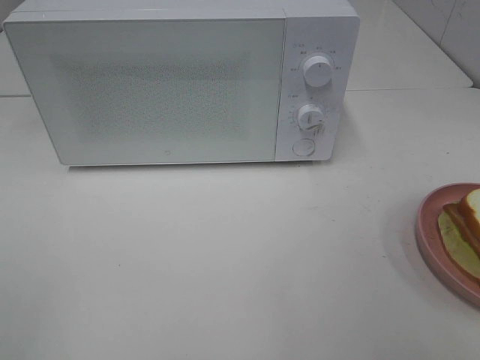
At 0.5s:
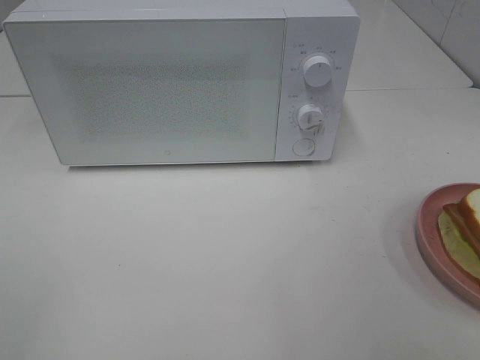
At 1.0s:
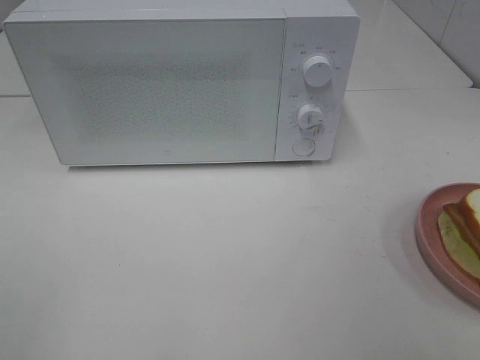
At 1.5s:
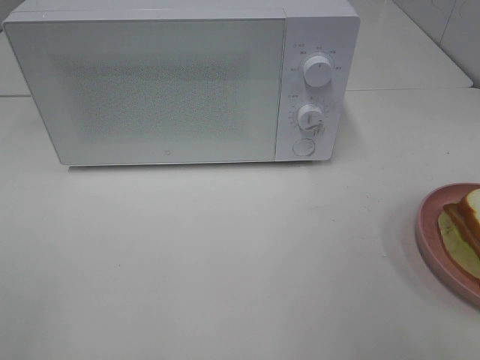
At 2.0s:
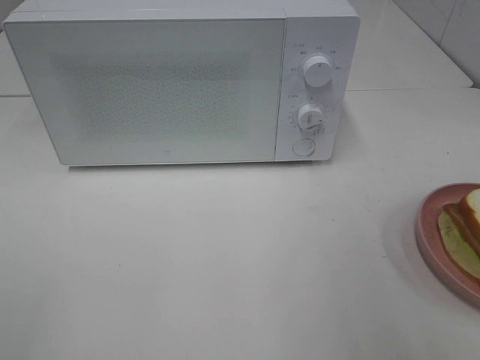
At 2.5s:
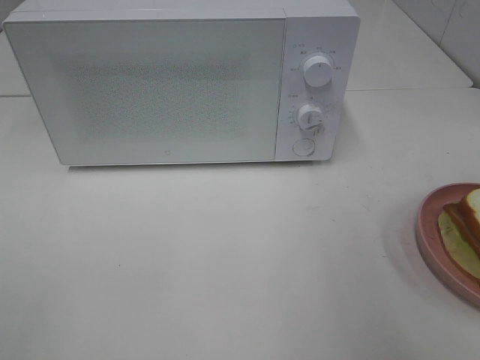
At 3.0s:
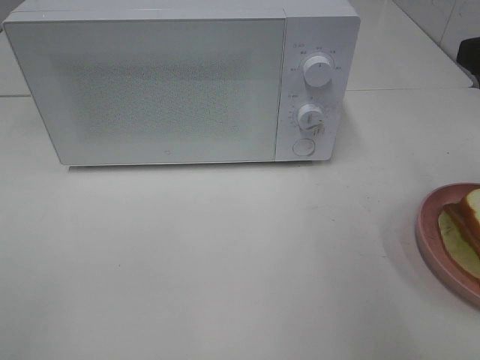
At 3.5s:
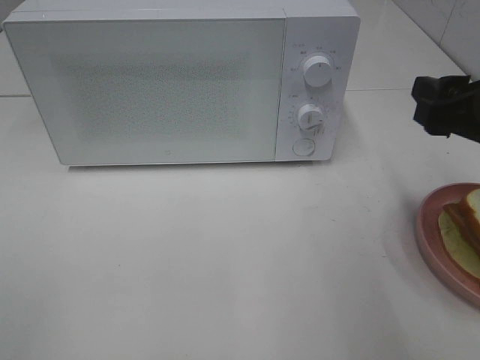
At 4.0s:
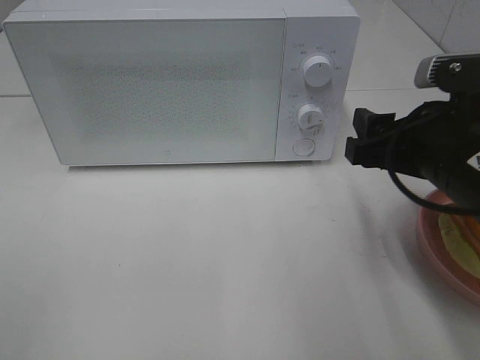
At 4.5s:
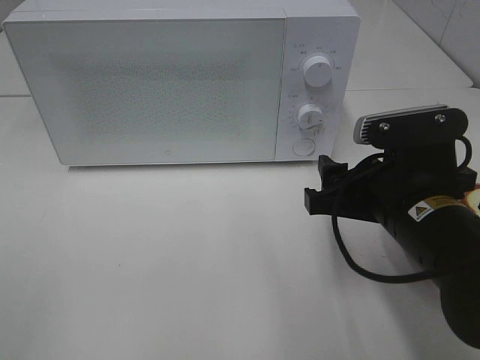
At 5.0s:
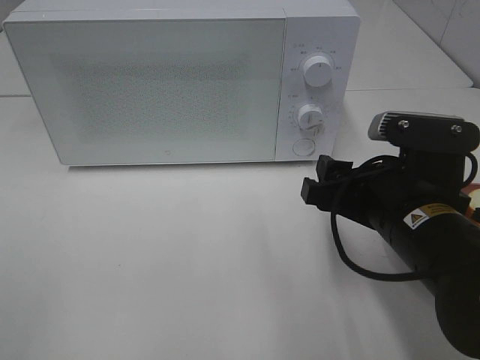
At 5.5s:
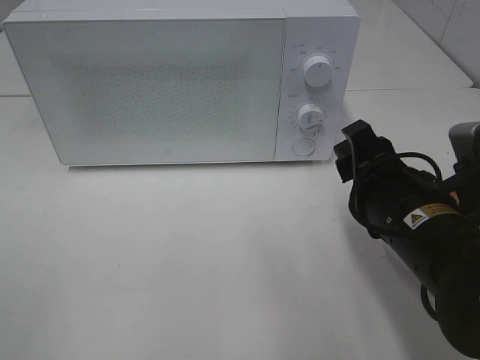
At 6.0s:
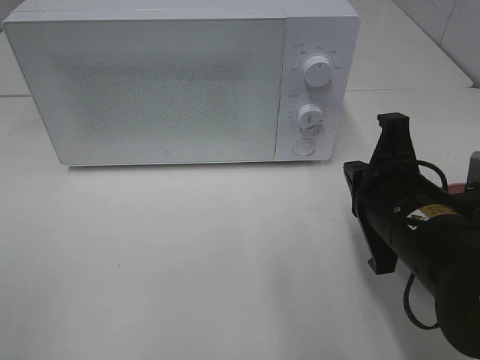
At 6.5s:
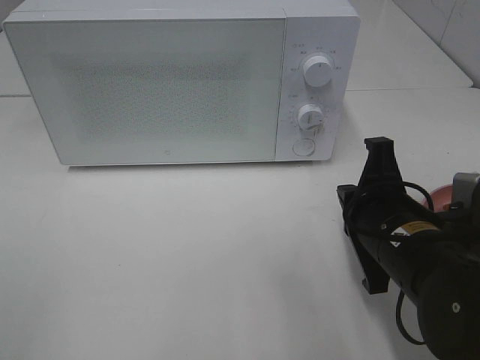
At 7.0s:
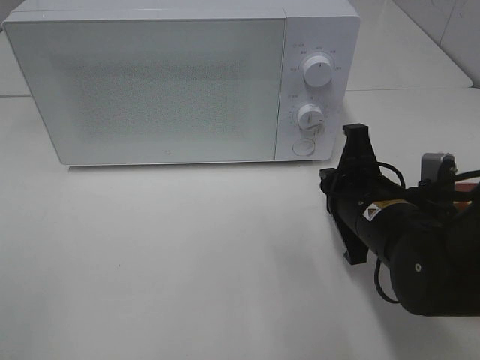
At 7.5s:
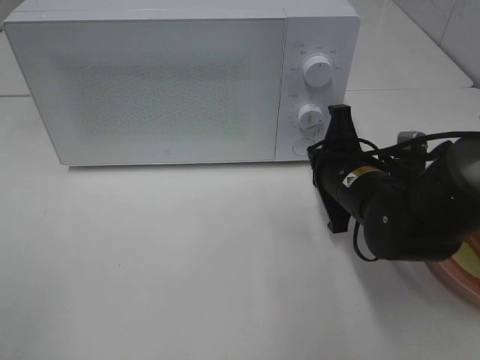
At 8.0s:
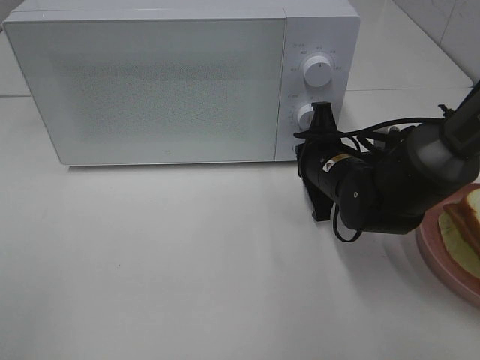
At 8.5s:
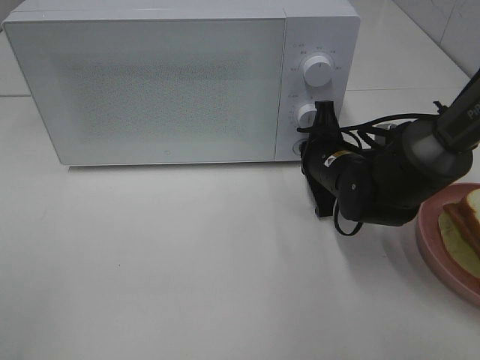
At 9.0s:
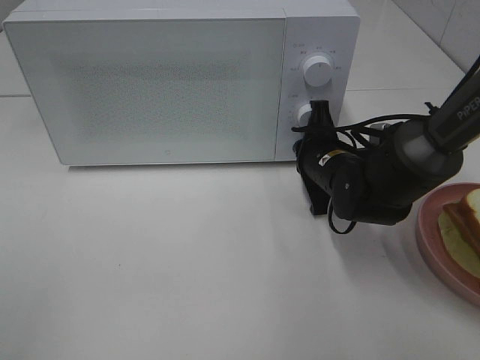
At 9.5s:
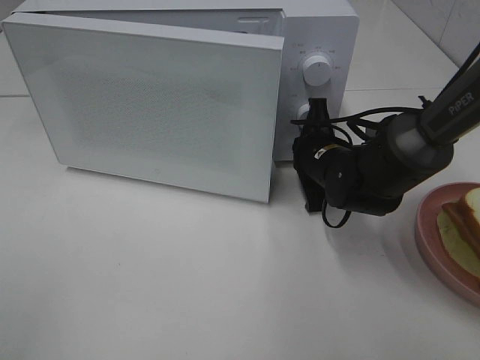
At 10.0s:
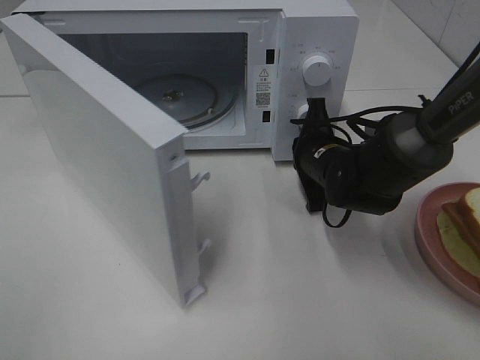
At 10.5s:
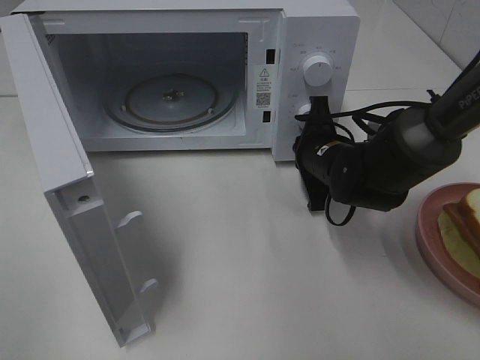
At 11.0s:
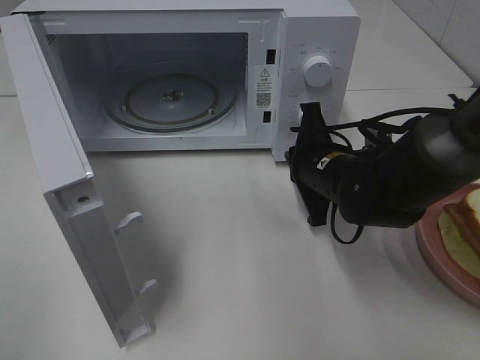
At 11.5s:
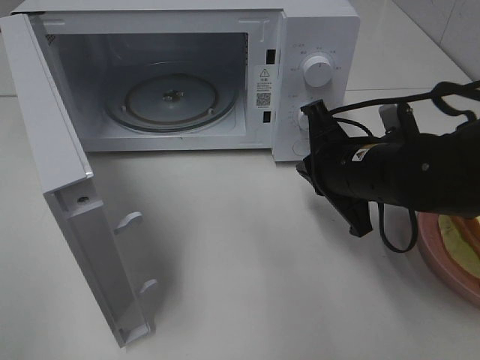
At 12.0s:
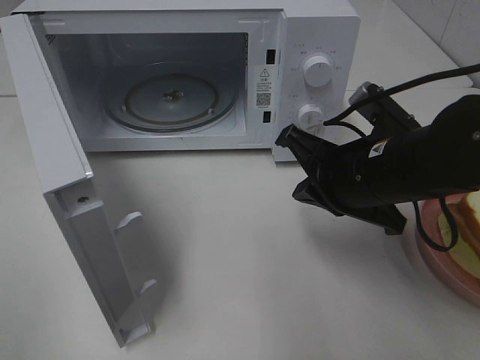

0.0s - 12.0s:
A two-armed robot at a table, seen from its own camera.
Task of the whole recording: Heat Sandwich.
Step, 0.0s - 10.5s: Right hand: press the switch.
2.0s - 4.0s: The right gripper travels downward, forward and to the left by roughly 20 cm.
4.0s - 6.0s: The right gripper moves roughly 5 cm, and closes.
6.0s - 8.0s: The right gripper goes about 15 cm forward and downward.
10.0s - 12.0s: The right gripper moves backward and upward, approximately 15 cm.

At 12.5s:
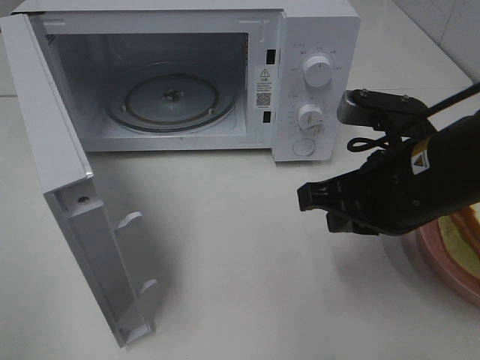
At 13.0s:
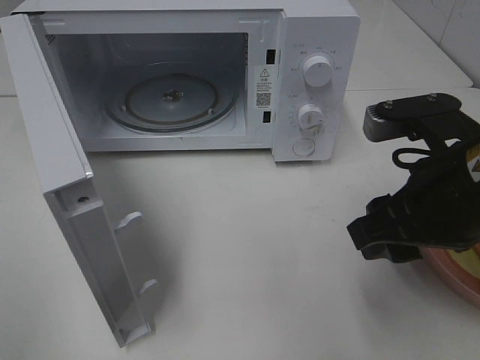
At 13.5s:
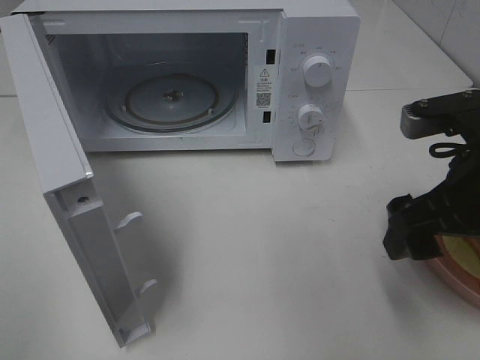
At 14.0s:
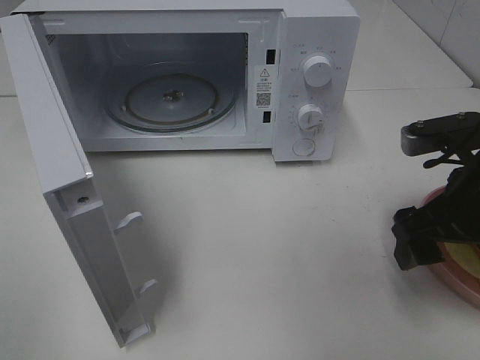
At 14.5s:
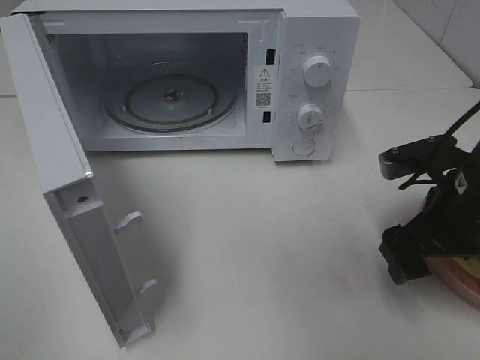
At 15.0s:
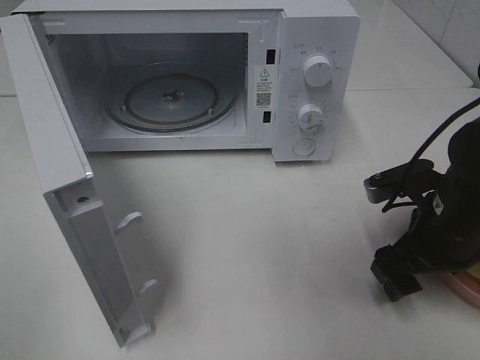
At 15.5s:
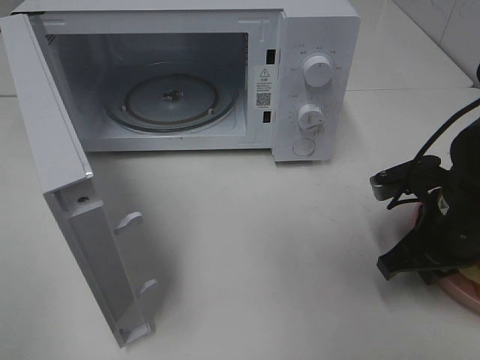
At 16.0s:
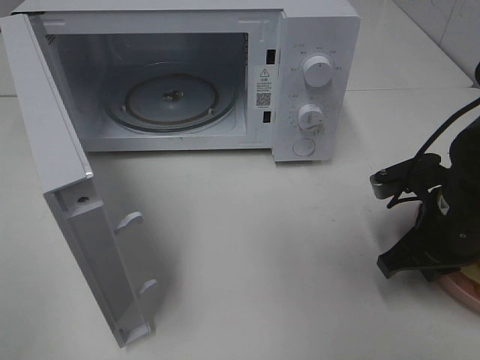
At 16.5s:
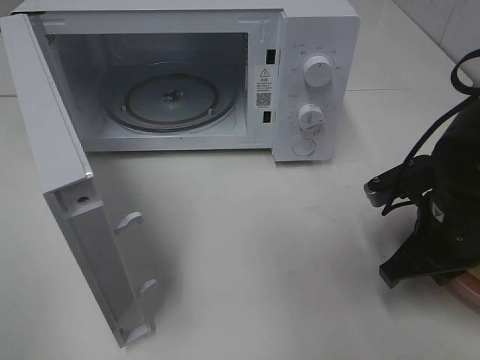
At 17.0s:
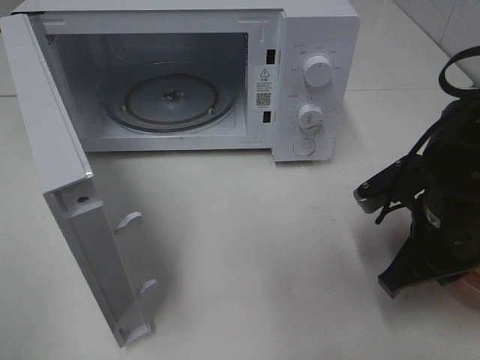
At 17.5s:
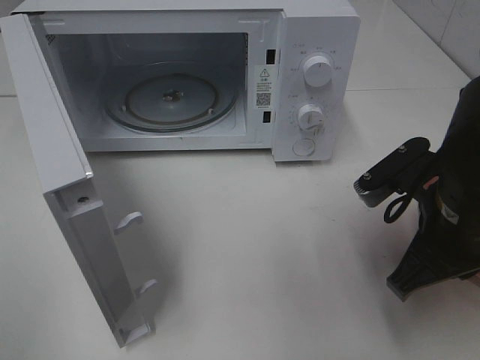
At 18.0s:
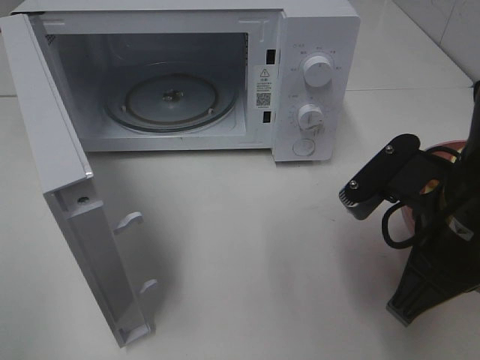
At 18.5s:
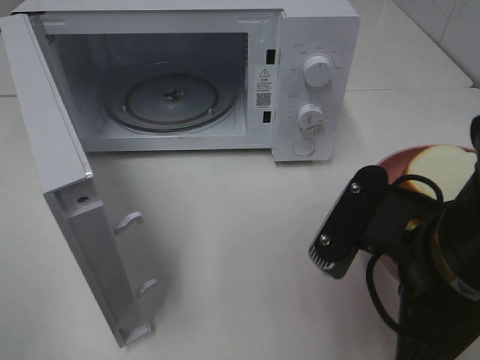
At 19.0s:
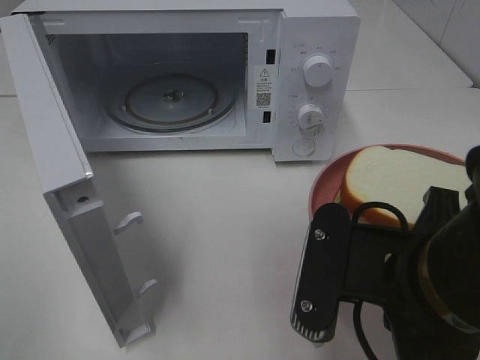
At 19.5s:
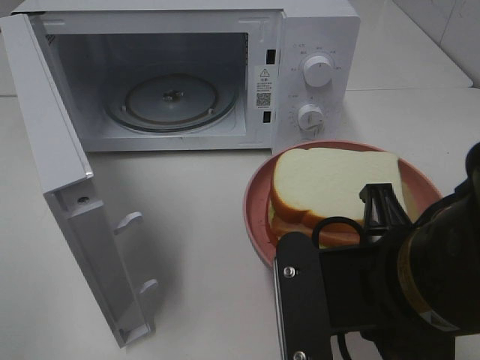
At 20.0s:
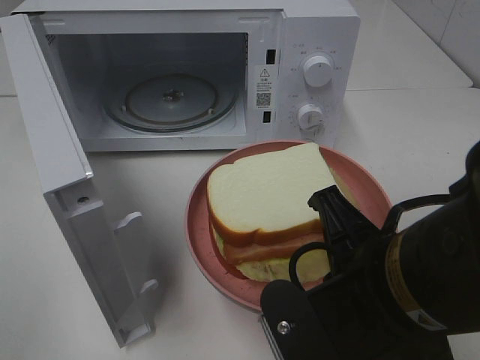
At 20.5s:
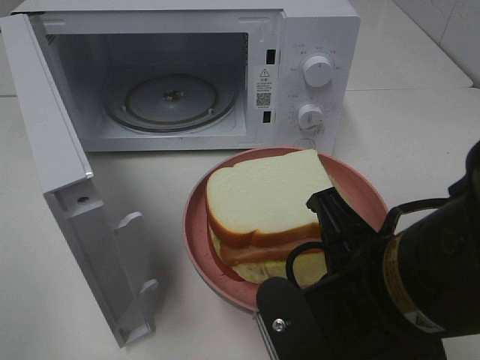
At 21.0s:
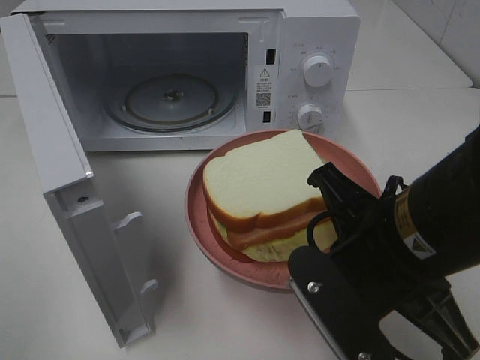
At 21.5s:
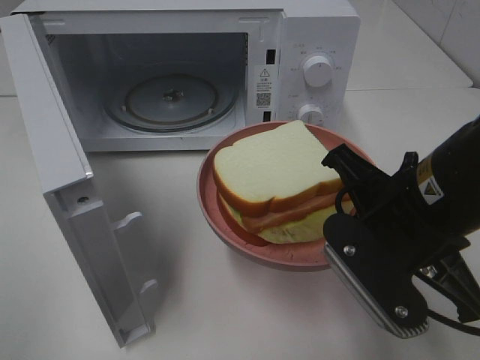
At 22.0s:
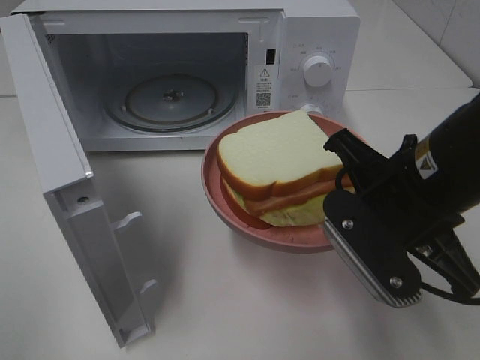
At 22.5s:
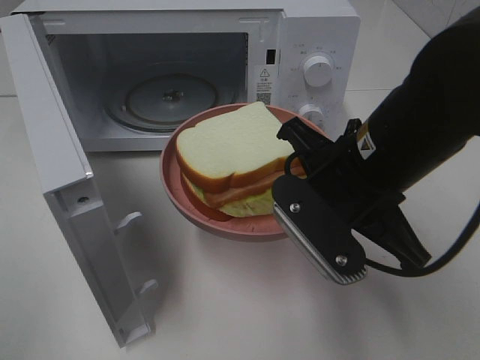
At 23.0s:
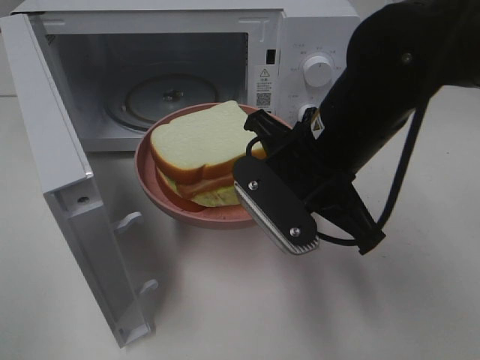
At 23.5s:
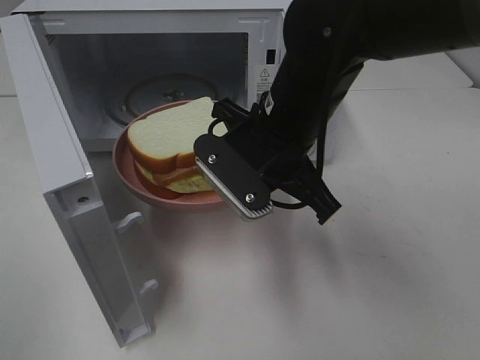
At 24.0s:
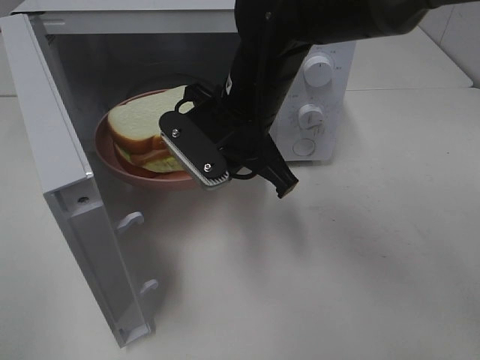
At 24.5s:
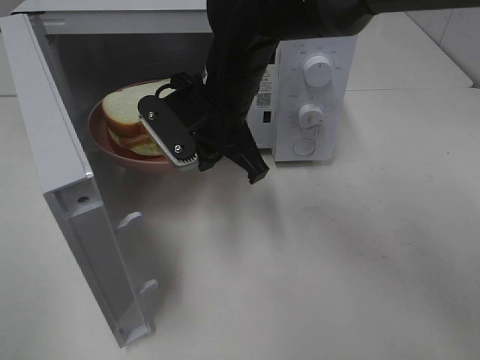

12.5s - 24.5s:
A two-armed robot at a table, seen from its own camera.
Task of the whole recording: Heat Sandwich.
Step, 12.5s - 15.5s: Right hand: grab the plate with the sandwich.
12.5s - 14.5s: The right gripper moves to the right, approximately 5 cm, and opens up.
14.5s - 16.5s: The right gripper closes its fingers.
16.5s - 18.5s: The right gripper moves backward, upward and to the left, approximately 15 cm.
20.5s - 22.5s: The right gripper shifts about 10 cm forward.
22.5s - 24.5s: The right gripper shifts roughly 15 cm forward and to the left.

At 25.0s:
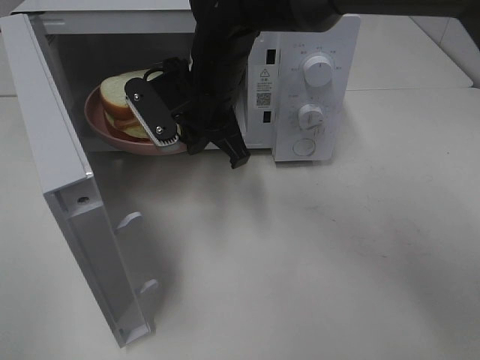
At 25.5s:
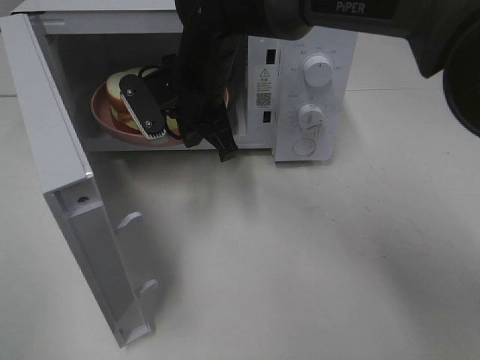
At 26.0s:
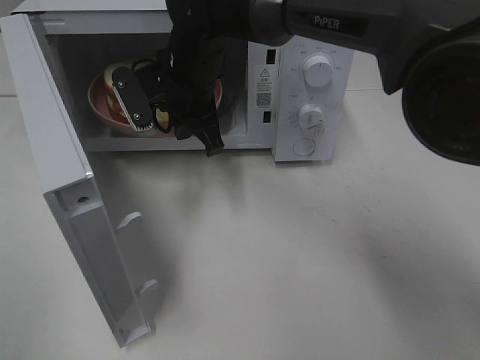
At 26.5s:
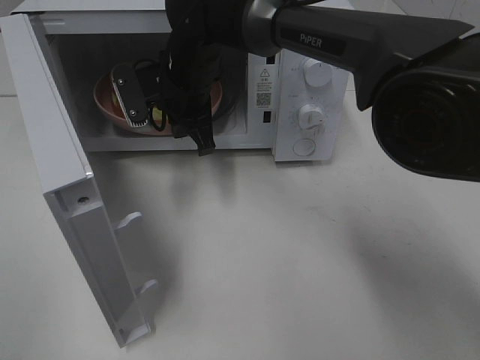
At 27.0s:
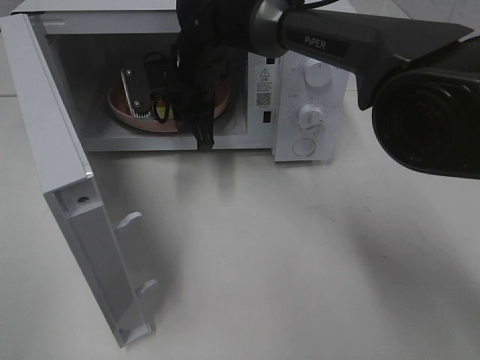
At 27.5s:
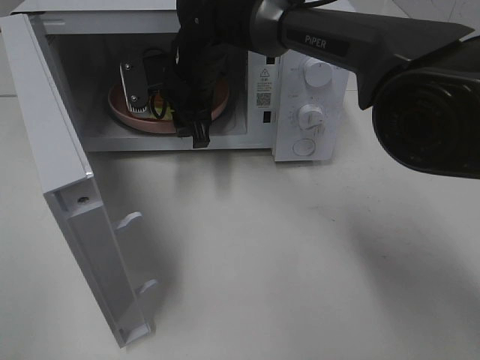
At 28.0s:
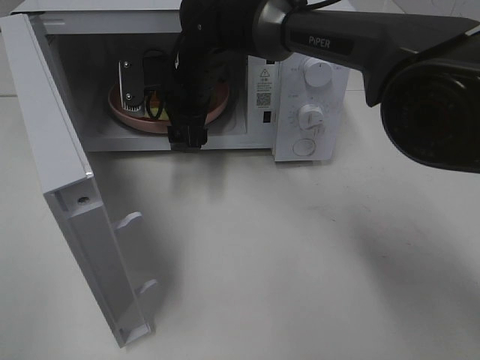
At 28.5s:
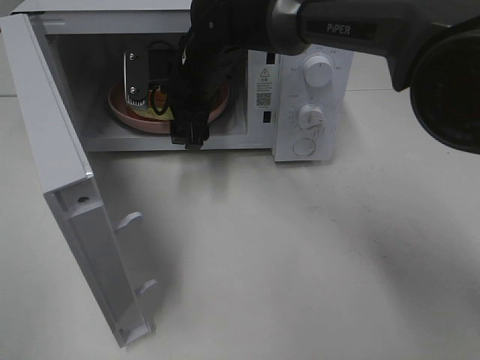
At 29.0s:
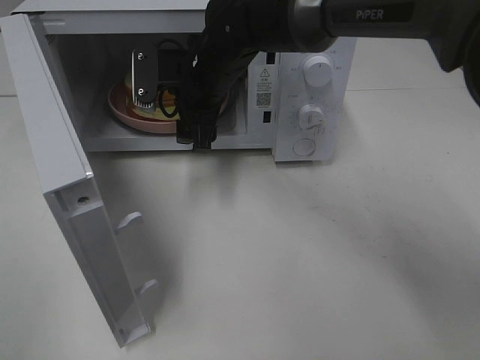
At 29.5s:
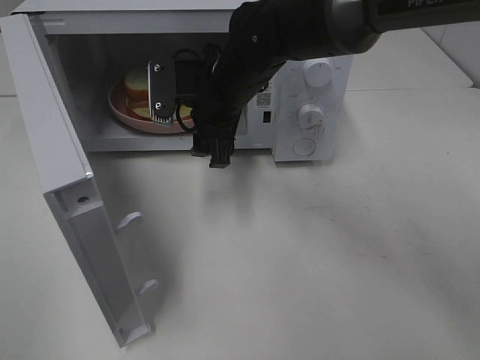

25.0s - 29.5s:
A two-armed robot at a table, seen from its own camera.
Task of the whole recording: Heat Sandwich.
Step, 25.0s - 28.5s: Right hand: place the plate in the microwave.
25.0s - 27.0s: The right gripper shifts about 5 cm forward.
27.0s - 29.5s: The right gripper travels backward by some 5 cm, and opens.
